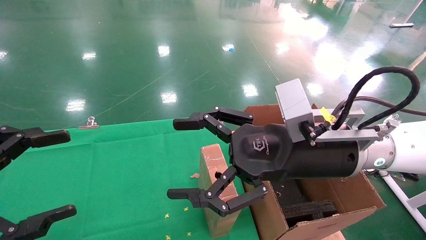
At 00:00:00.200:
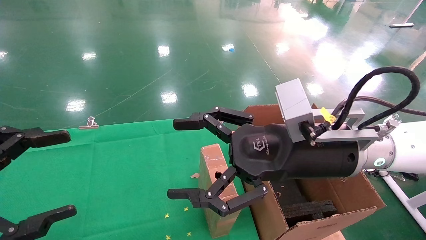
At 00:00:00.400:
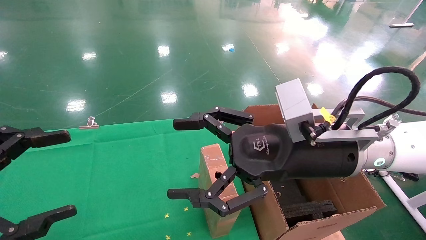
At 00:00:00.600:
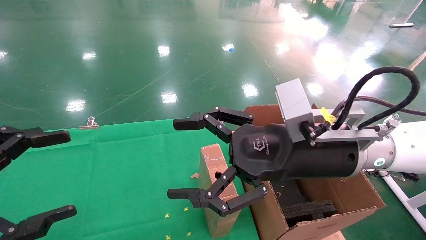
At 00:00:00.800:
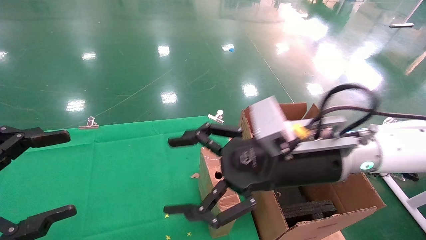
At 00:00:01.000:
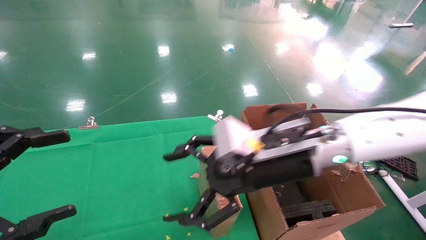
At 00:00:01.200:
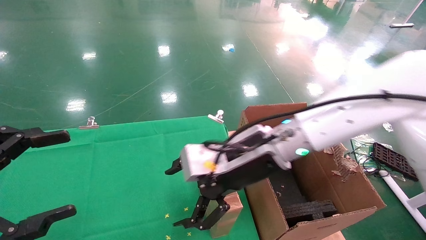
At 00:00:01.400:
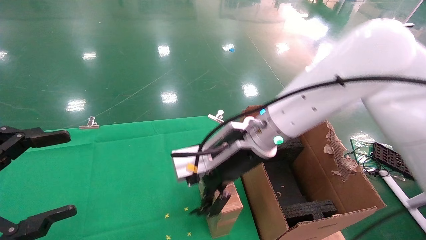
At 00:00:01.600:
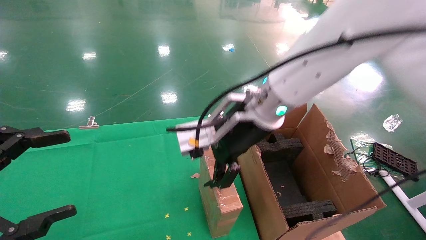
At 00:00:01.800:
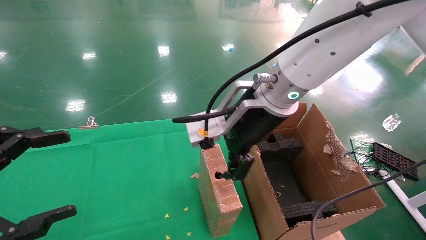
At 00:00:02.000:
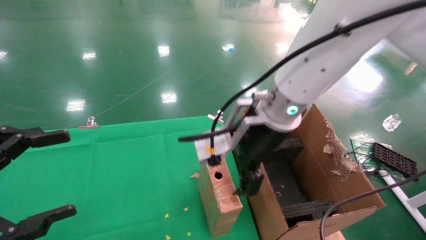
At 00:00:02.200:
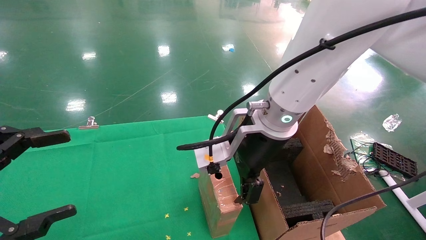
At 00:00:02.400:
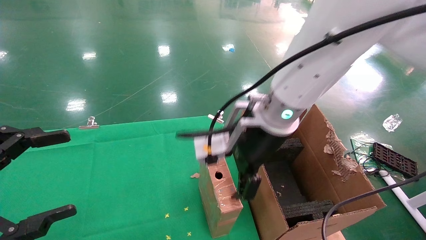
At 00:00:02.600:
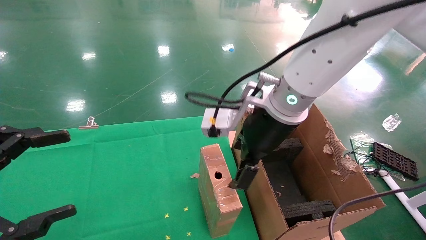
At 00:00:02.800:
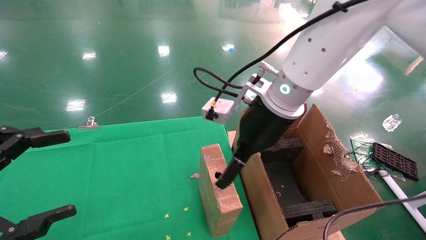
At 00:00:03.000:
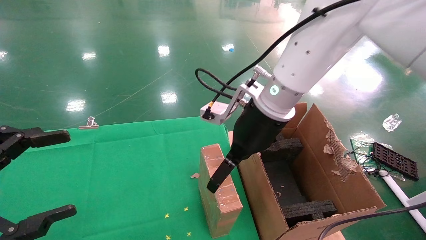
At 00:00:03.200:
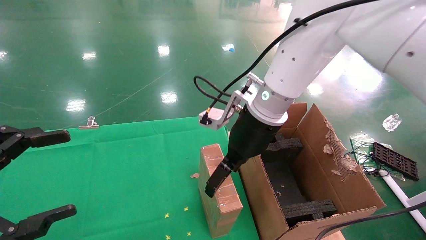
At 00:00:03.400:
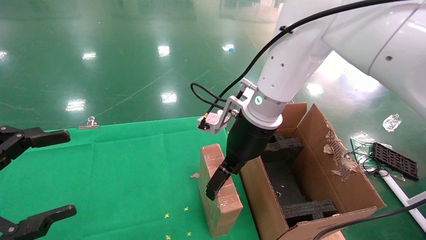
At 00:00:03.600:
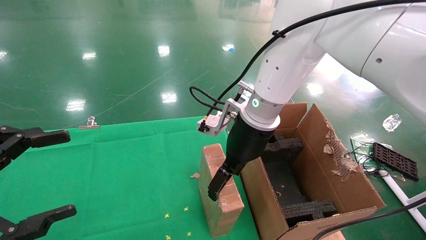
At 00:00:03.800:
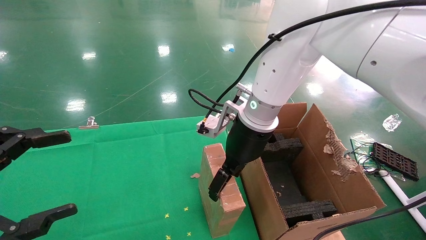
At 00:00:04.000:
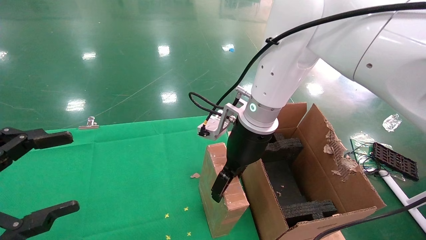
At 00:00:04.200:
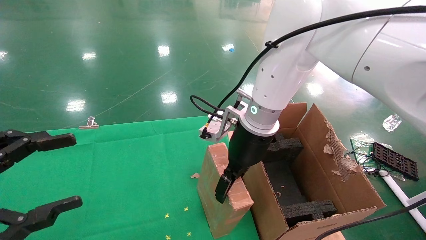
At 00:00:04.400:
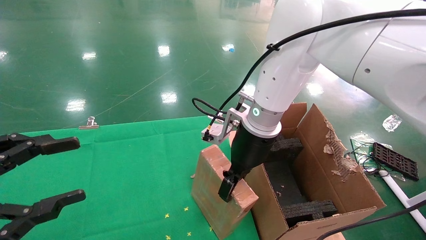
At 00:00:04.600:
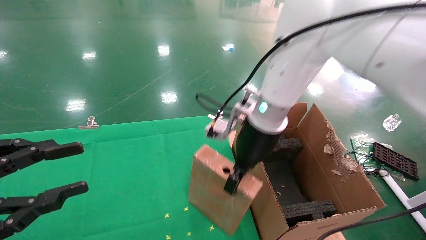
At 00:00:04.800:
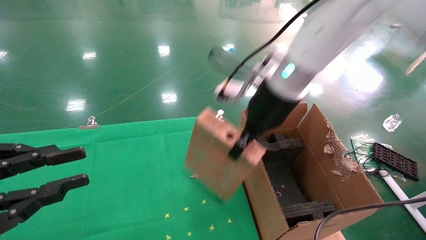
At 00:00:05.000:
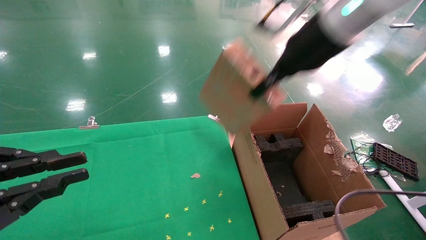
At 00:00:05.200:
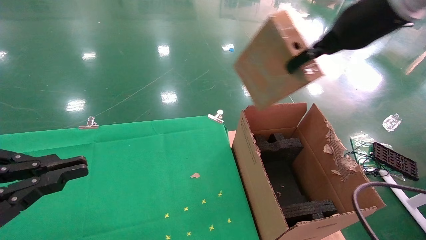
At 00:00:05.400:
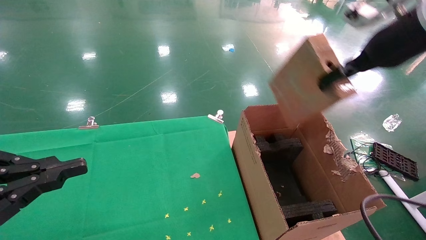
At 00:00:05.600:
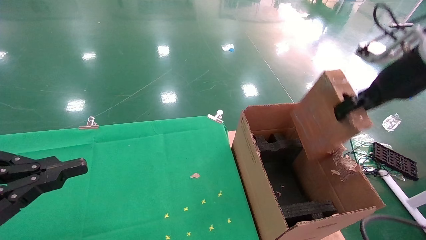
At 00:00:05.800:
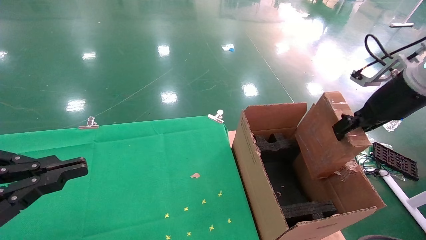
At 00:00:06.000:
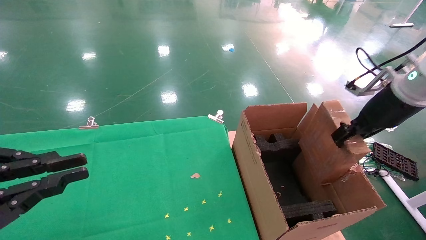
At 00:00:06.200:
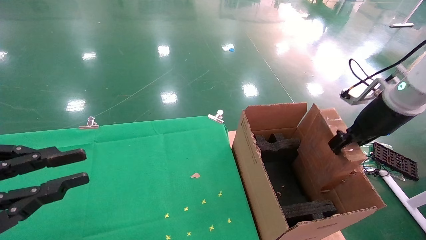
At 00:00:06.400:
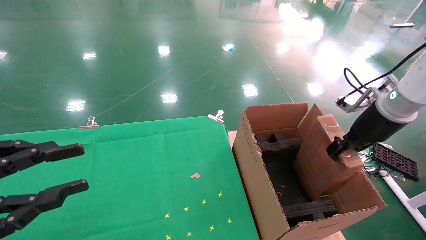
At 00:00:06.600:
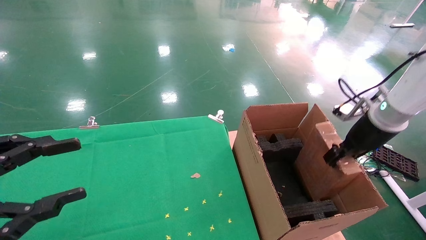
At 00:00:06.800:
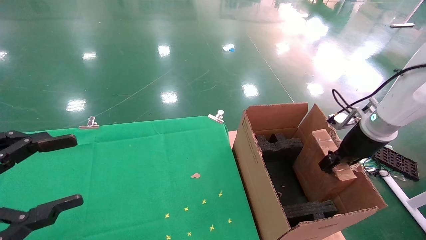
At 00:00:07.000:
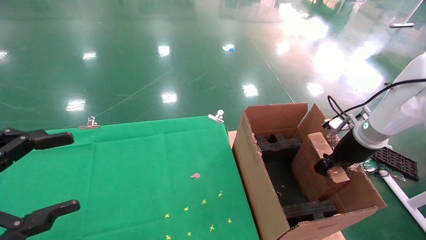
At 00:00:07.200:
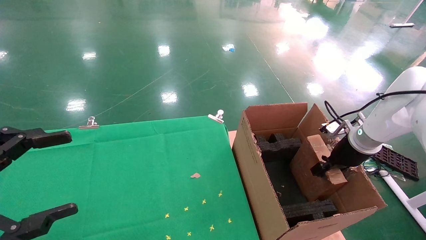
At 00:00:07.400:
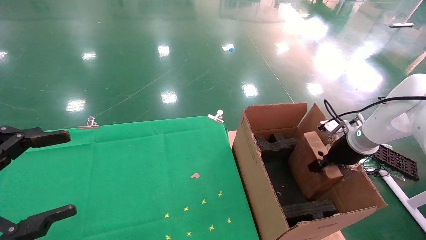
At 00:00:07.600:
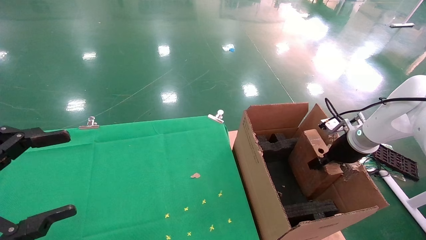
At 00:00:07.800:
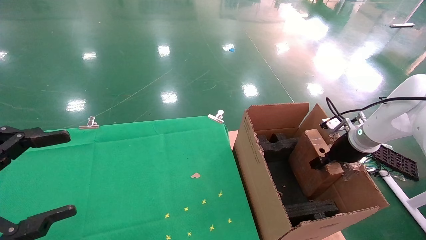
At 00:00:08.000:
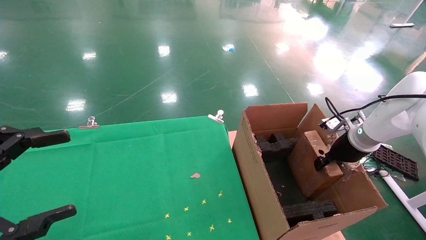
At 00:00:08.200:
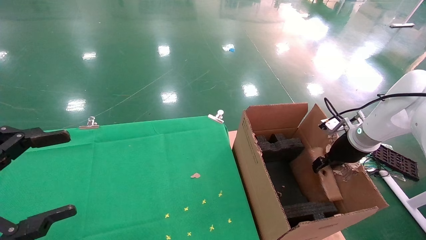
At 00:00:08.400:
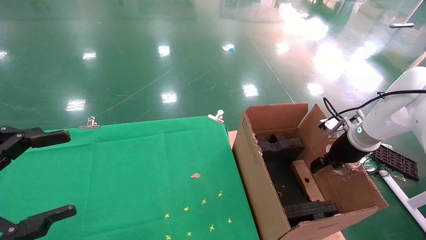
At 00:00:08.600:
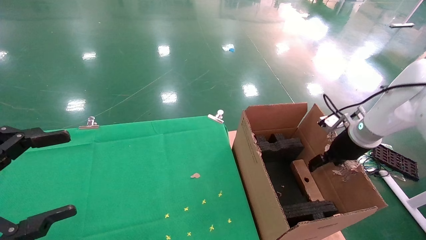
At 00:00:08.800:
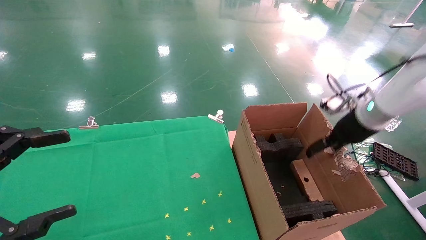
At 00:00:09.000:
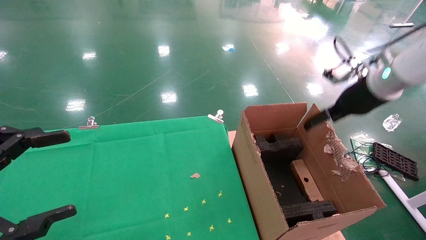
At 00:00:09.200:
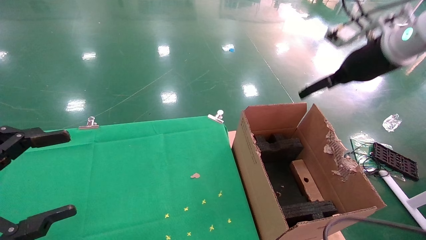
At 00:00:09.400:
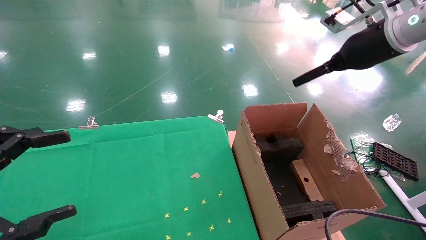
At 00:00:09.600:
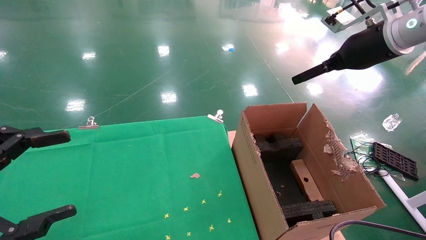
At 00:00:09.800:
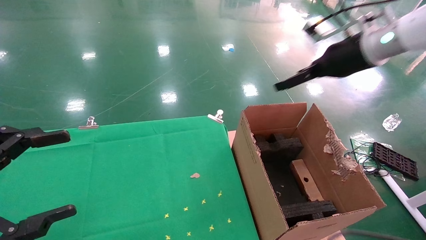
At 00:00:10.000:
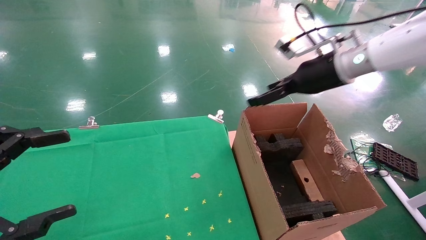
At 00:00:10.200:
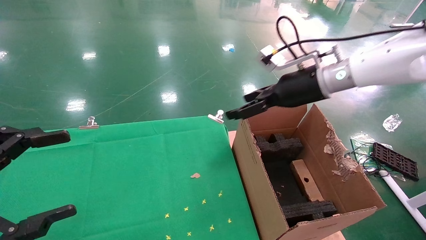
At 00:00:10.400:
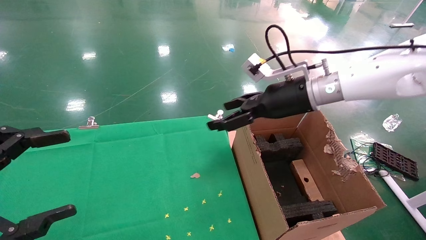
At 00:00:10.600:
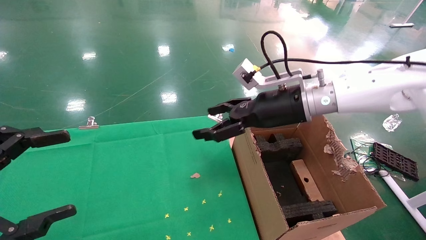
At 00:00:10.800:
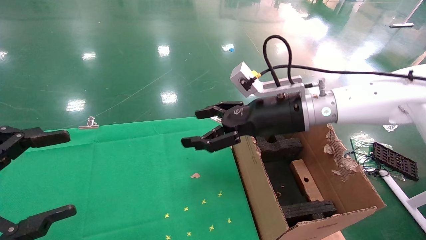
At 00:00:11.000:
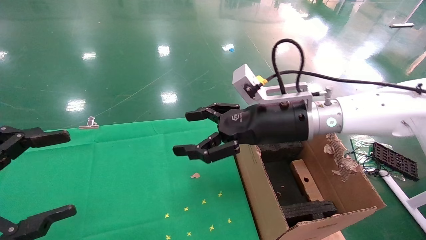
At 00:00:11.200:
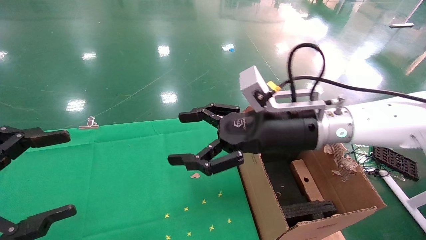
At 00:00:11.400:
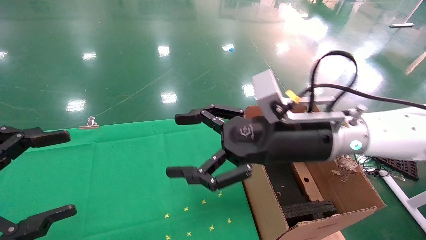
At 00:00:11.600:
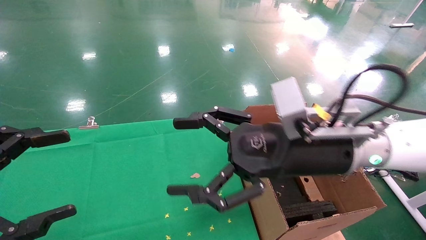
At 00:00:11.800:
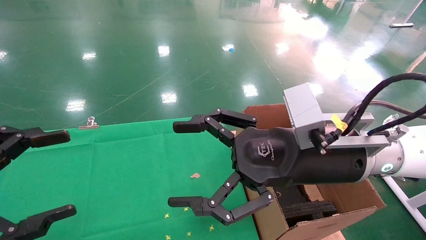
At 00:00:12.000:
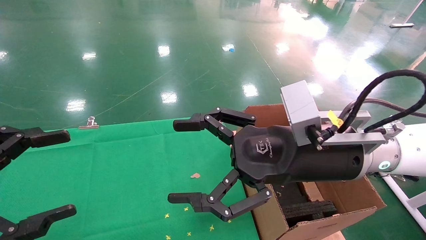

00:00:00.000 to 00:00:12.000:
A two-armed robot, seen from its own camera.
Task of the whole recording: using a robotic arm to pick up a cardboard box and palace it the carton.
Step, 00:00:00.800 to 00:00:04.400: Pick up the mouse and the power cord paper box.
Step, 00:00:04.600 to 00:00:08.400: Place the mouse and the power cord paper box into the container.
00:00:00.000 to 00:00:01.600: The right gripper moves to the left and forward, roughly 10 cm.
00:00:03.000 to 00:00:04.400: The right gripper closes up.
00:00:04.400 to 00:00:06.000: The right gripper goes about 30 cm to the right, and closes its fingers, while the left gripper closes.
00:00:06.000 to 00:00:07.600: The right gripper moves downward and forward, about 15 cm. The left gripper opens up.
00:00:07.600 to 00:00:09.000: The right gripper moves upward, roughly 15 cm, and opens its fingers.
00:00:09.000 to 00:00:10.400: The right gripper heads to the left, covering about 15 cm.
00:00:10.400 to 00:00:12.000: The right gripper is displaced backward by approximately 15 cm.

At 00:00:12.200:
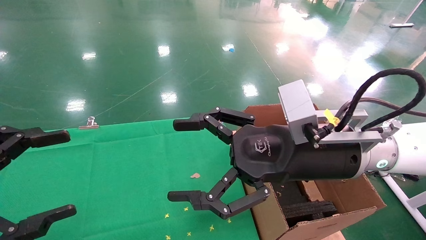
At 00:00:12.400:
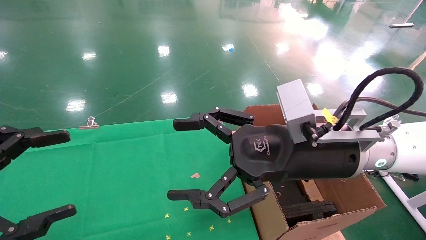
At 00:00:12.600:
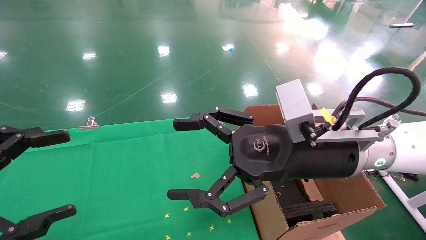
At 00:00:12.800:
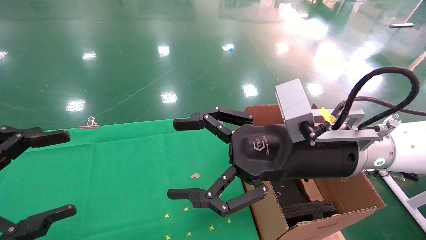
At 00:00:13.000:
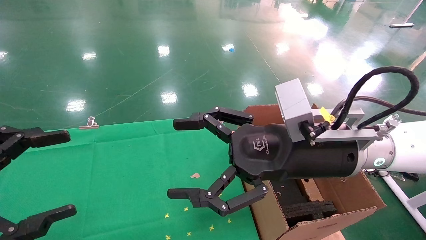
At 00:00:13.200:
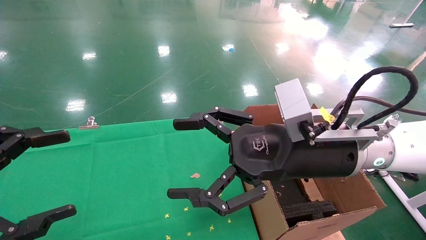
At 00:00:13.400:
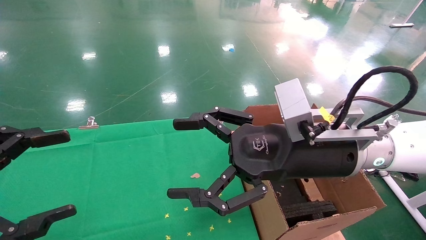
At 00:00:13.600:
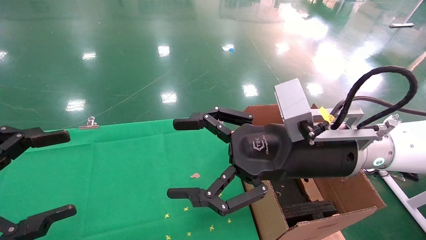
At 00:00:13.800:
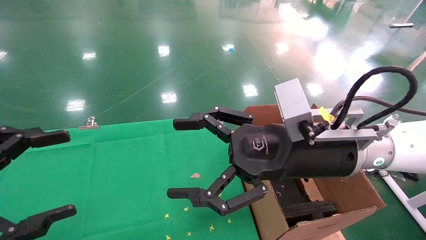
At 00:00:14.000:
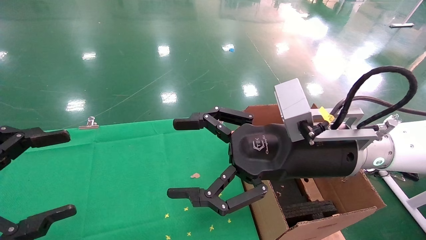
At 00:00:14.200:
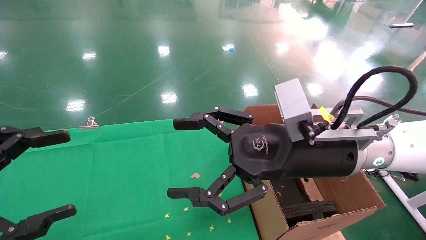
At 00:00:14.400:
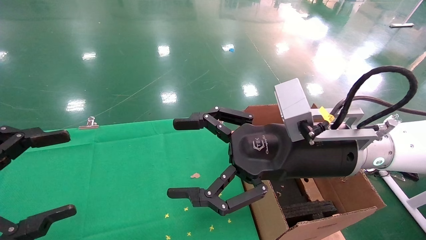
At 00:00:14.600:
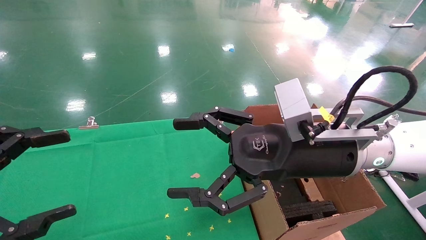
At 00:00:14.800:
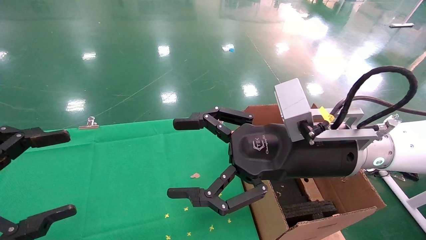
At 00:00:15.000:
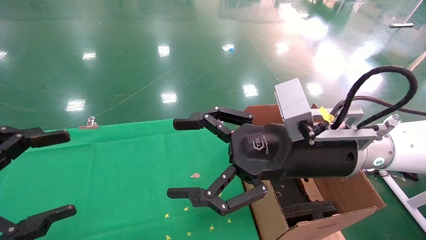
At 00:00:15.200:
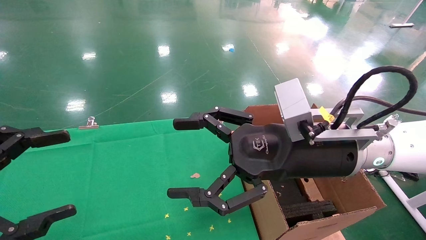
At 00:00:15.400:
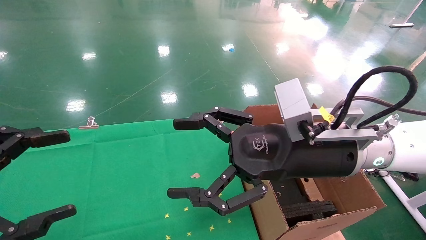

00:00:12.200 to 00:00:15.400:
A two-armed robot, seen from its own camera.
Task of the whole recording: using a robotic arm to pick up a cardboard box and palace it the carton.
00:00:12.200 to 00:00:15.400: Both grippers stay about where they are.
